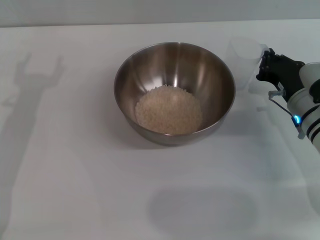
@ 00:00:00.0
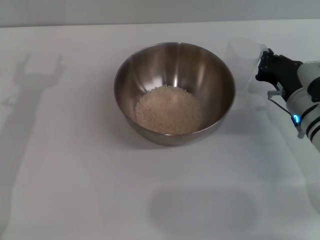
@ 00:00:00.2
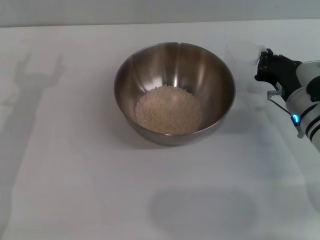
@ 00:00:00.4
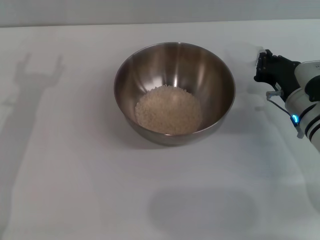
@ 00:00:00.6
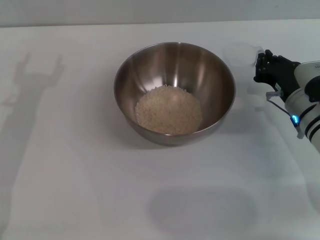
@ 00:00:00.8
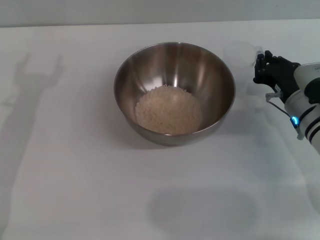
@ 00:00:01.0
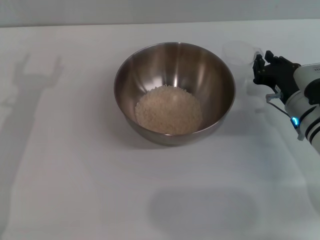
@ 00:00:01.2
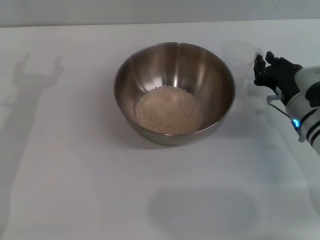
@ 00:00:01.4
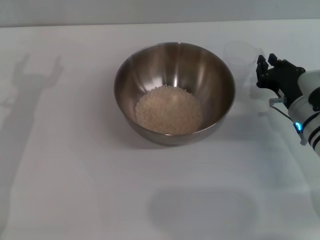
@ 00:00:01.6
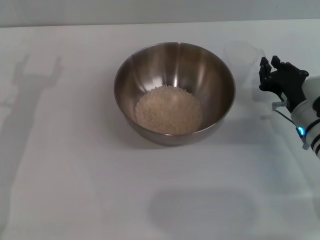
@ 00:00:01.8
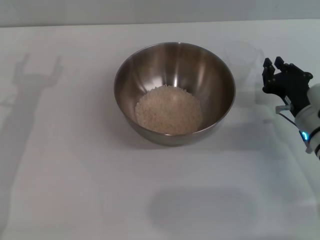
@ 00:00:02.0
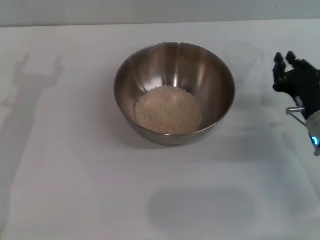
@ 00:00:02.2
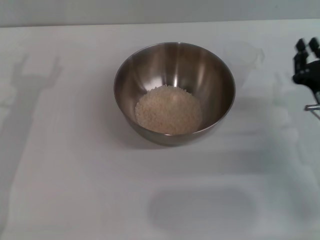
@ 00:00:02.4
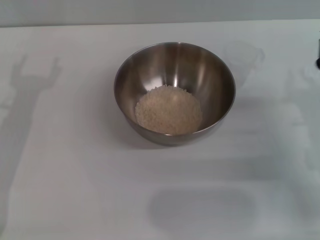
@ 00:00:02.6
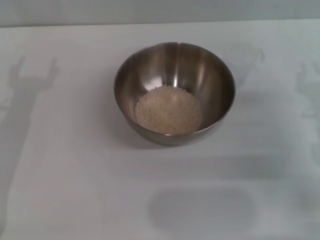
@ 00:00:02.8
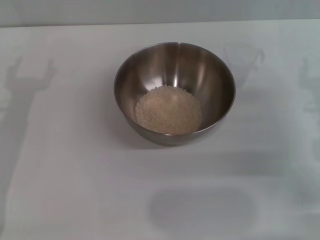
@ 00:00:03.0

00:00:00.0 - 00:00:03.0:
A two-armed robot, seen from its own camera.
Task of the whole recording: Place the bowl in the middle of the table with one hand and pour the rice from the grain cup into it with the other hand.
00:00:00.0 - 00:00:01.6: The right gripper opens its fingers.
00:00:01.6 - 00:00:03.0: The right gripper moves upward and to the right, roughly 10 cm.

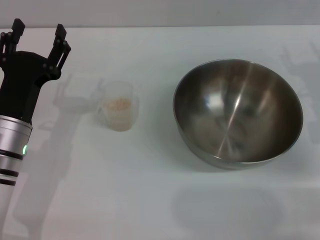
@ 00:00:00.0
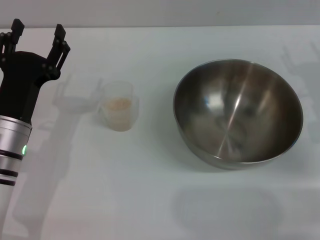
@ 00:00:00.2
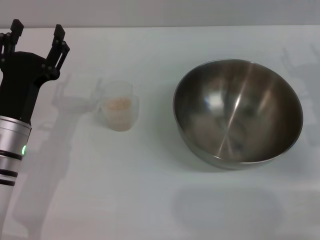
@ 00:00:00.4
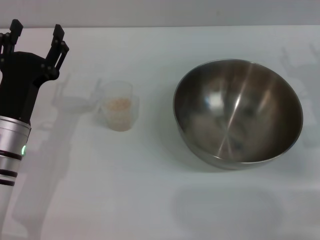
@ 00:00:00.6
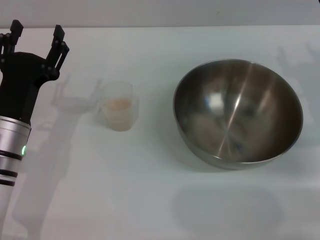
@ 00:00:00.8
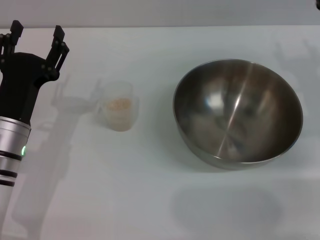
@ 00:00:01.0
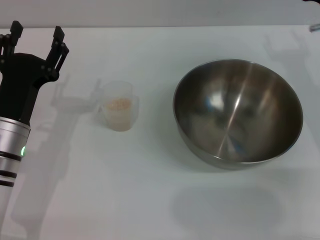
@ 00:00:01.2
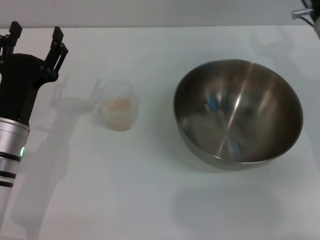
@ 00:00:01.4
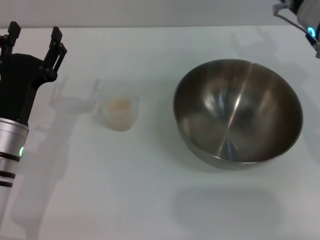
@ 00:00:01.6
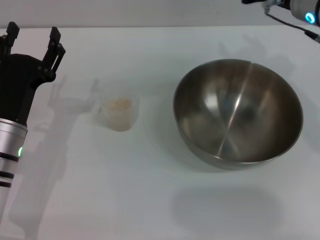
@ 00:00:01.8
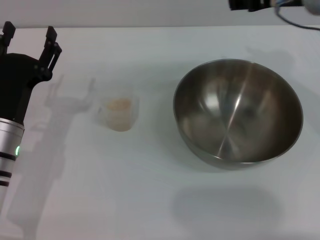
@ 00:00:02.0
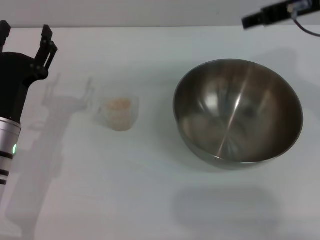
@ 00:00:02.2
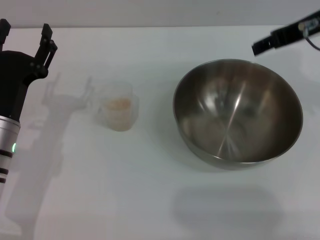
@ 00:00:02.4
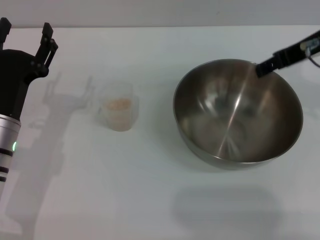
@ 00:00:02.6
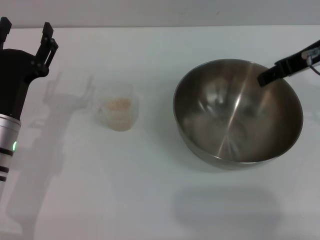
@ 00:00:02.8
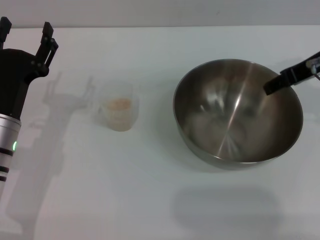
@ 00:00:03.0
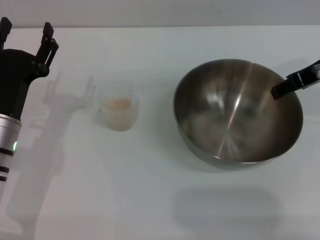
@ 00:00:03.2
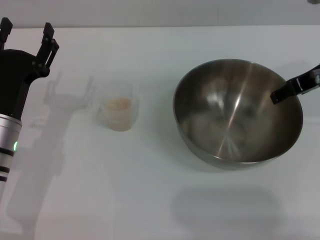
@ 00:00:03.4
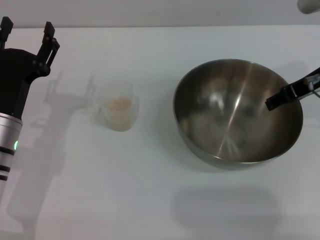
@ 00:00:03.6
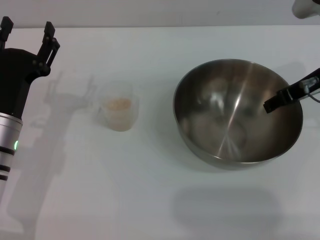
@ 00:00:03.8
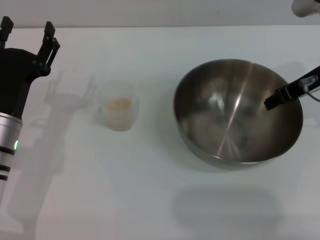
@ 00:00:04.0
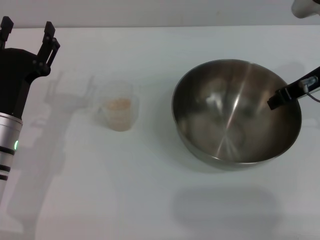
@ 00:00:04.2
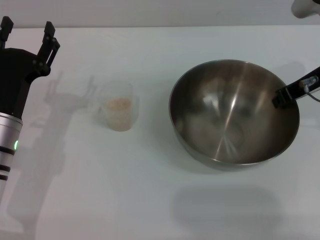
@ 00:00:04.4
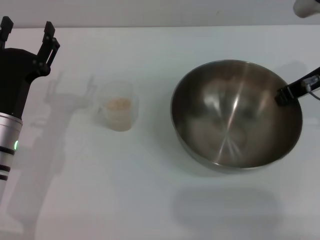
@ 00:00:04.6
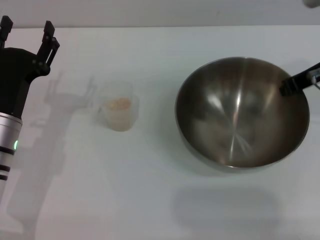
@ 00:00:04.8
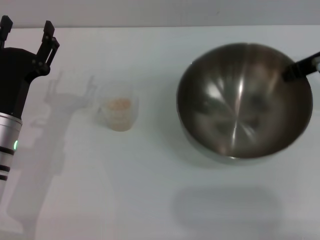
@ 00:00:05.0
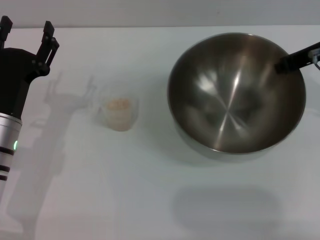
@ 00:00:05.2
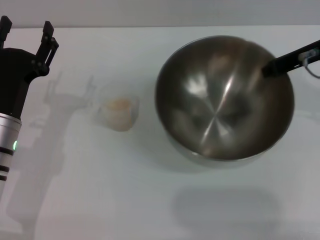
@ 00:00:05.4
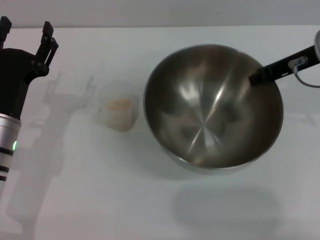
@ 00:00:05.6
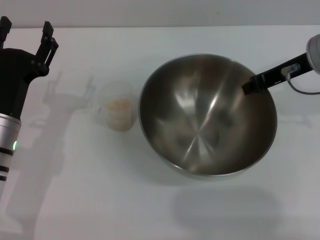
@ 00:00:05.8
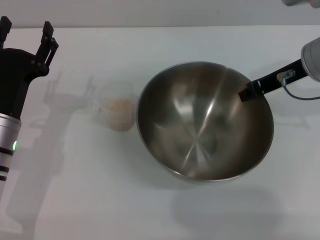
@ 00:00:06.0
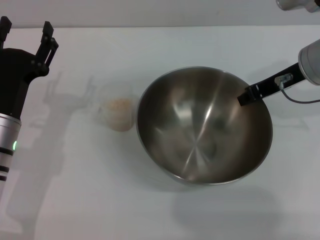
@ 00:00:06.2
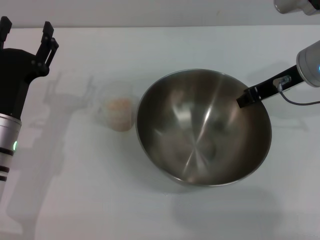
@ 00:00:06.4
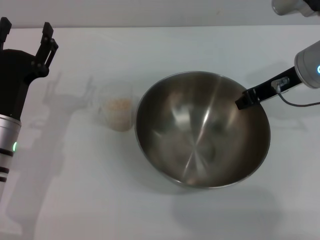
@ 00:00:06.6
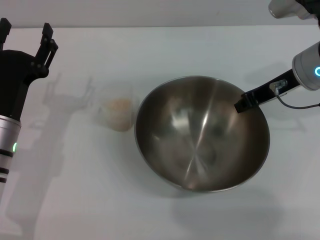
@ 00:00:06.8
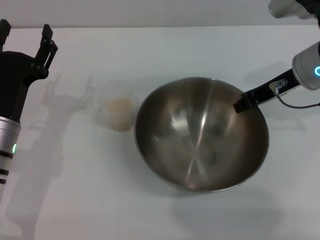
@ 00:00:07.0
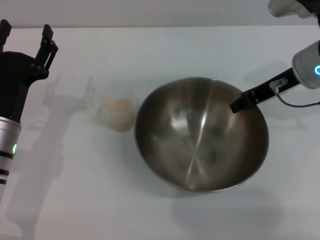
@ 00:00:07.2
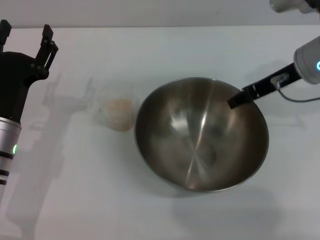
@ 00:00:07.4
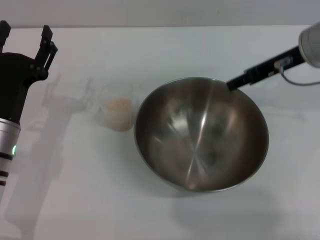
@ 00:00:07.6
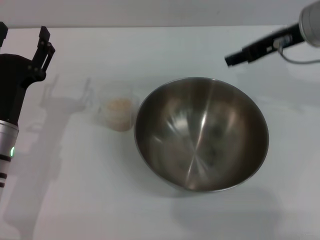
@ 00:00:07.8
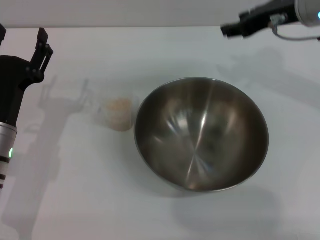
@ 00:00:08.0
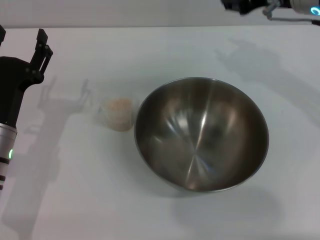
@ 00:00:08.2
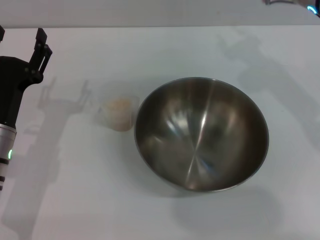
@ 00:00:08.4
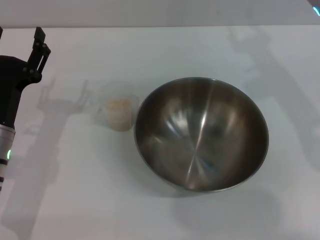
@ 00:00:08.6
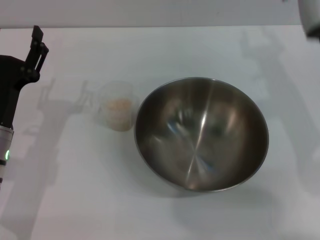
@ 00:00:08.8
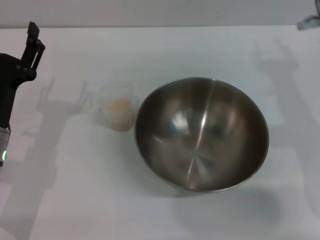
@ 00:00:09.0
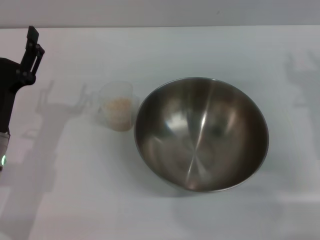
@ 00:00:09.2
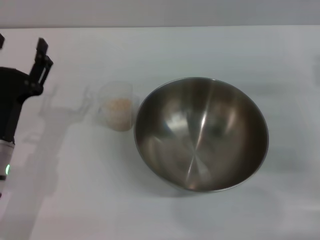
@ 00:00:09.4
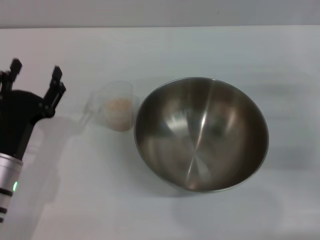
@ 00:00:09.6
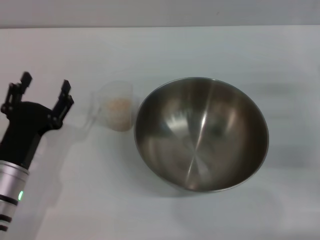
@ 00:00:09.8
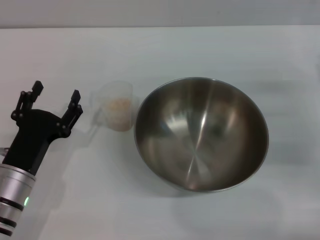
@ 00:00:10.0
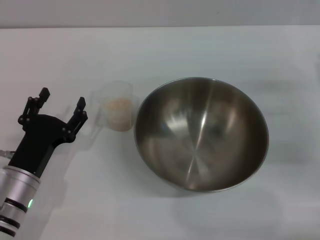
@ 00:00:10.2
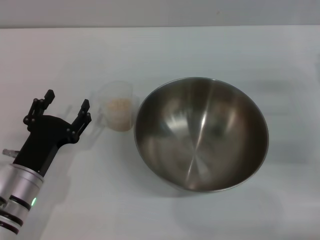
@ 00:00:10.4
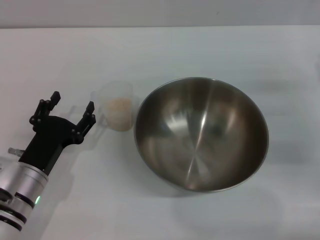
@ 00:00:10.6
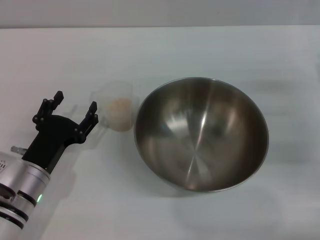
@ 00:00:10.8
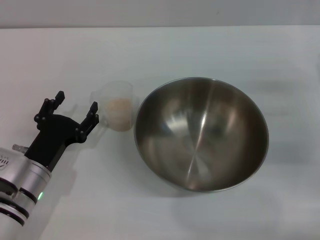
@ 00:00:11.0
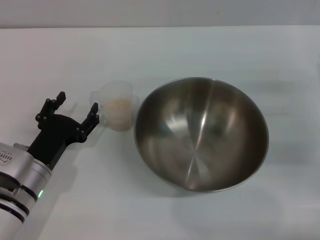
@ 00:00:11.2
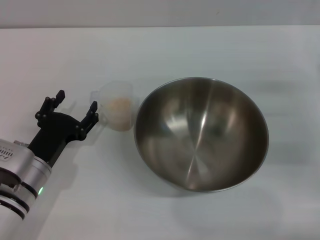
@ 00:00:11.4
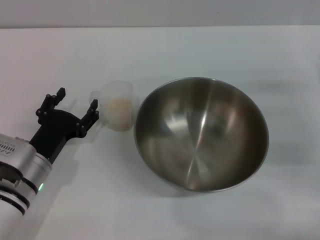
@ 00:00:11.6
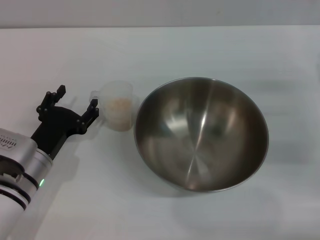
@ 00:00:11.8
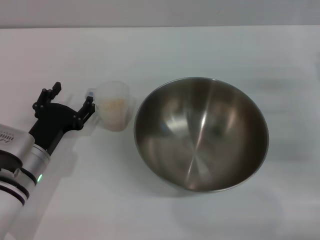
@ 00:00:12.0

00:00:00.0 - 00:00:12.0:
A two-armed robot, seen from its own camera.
Task of the whole recording: Place the bowl in the middle of the table with one hand and pour the rice from the grain cup into it with the other hand.
Step, 00:00:00.0 - 00:00:04.8: Pick up the bowl with the right gripper.
Step, 00:00:05.0 - 00:00:07.6: Place the bowl in the center of view with the right gripper.
00:00:00.0 - 00:00:01.6: The right gripper is displaced upward, to the left and forward by approximately 10 cm.
00:00:03.0 - 00:00:04.4: The right gripper closes its fingers.
00:00:04.4 - 00:00:06.0: The right gripper closes.
00:00:06.0 - 00:00:07.6: The right gripper opens.
00:00:07.6 - 00:00:09.0: The right gripper travels downward and backward by roughly 10 cm.
00:00:09.0 - 00:00:10.4: The right gripper travels to the right and downward by some 10 cm, while the left gripper moves downward, approximately 5 cm.
00:00:10.4 - 00:00:12.0: The grippers move only a little.

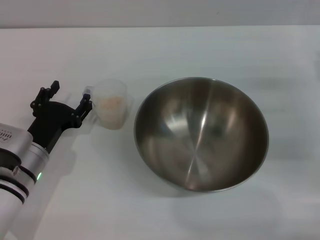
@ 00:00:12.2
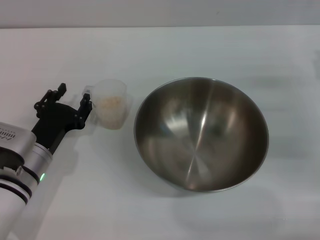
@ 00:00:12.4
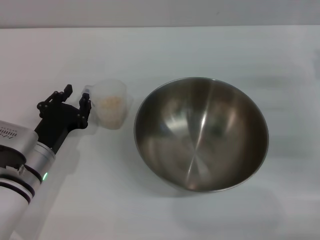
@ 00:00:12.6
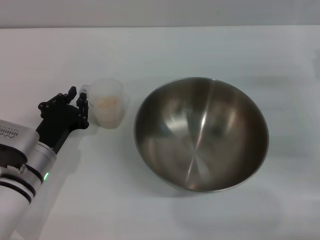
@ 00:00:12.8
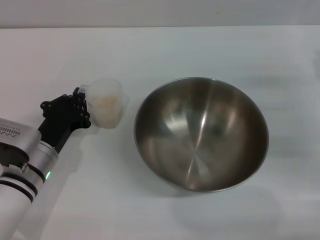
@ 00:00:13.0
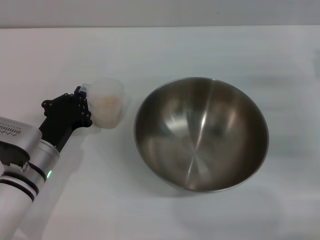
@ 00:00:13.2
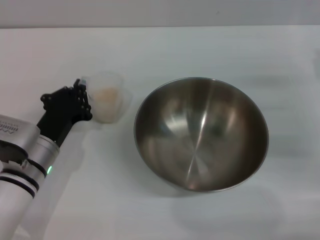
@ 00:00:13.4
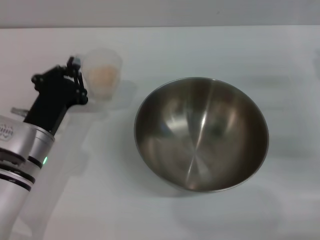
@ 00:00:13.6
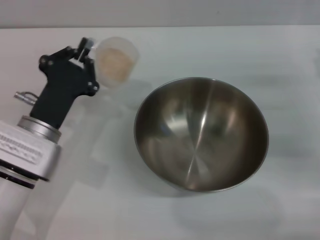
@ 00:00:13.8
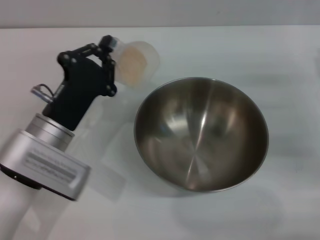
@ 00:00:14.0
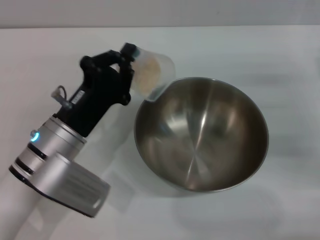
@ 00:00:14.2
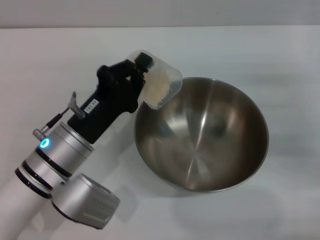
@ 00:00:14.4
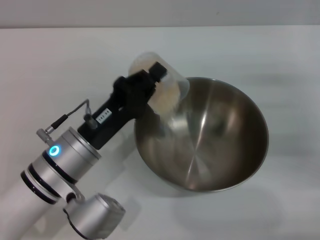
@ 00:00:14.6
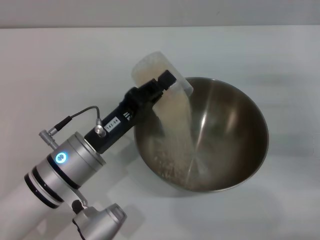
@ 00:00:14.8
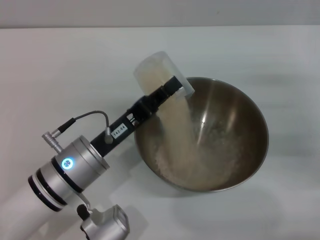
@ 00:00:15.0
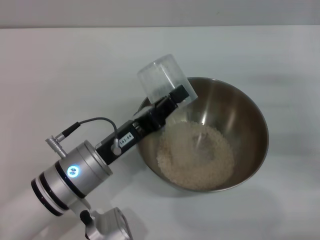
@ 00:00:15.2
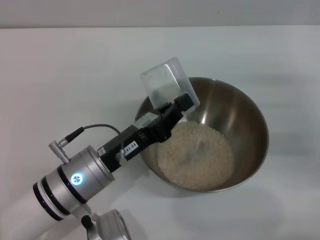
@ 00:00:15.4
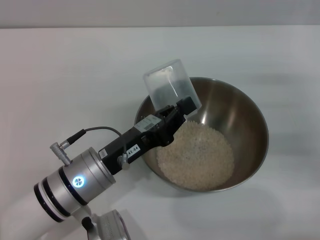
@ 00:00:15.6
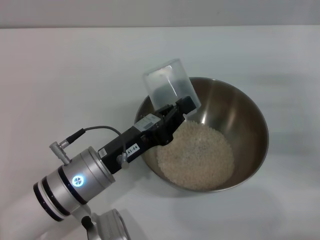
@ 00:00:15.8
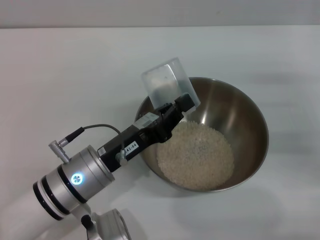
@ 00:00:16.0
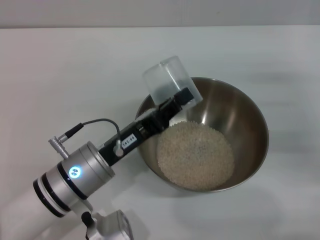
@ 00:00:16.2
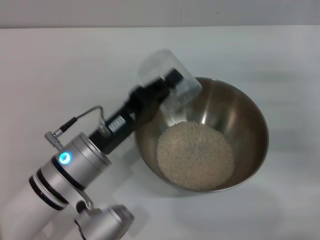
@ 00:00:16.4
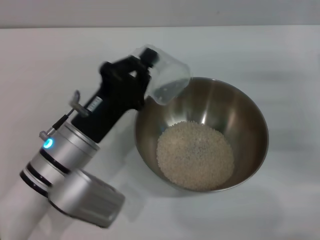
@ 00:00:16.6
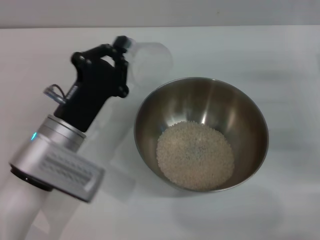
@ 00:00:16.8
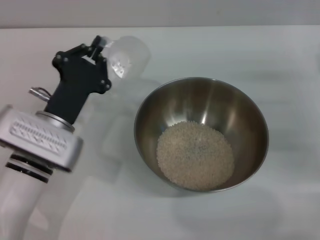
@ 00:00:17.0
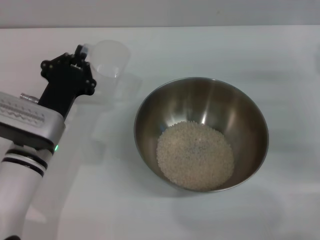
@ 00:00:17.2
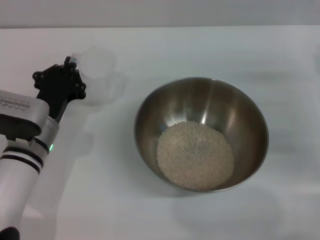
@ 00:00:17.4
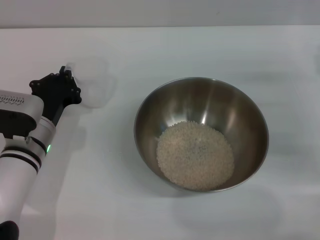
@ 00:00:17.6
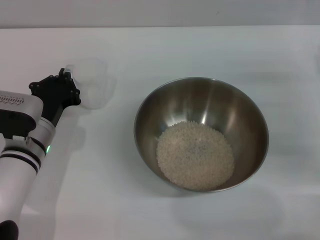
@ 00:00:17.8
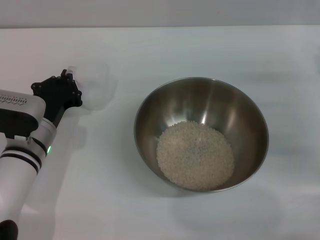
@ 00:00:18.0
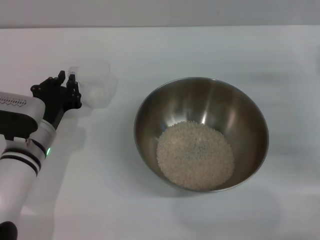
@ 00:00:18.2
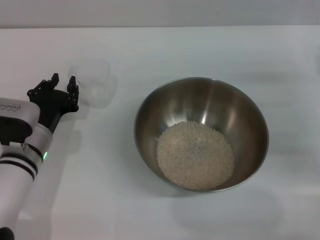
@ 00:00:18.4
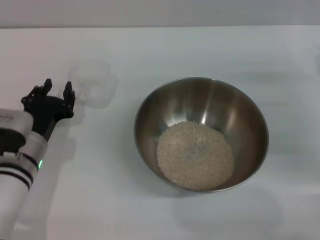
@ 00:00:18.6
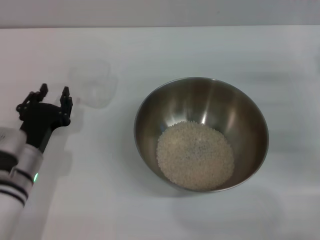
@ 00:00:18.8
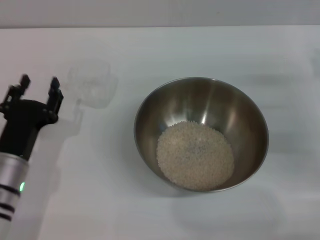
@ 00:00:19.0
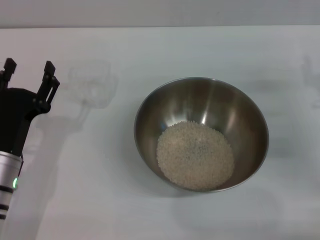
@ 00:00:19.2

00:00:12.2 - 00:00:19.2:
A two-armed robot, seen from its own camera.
Task of the whole recording: Place the bowl in the middle of the table with one hand and pour the rice from the grain cup into it with the other hand.
Step, 00:00:13.6 - 00:00:16.2: Pour the rice from the cup into the bowl with the left gripper.
Step, 00:00:16.4 - 00:00:18.4: Place the cup on the table with the left gripper.
00:00:12.2 - 00:00:13.6: The left gripper closes.
00:00:13.6 - 00:00:15.0: The left gripper travels to the right by approximately 5 cm.
00:00:15.0 - 00:00:16.4: The grippers stay close to where they were, moving slightly.
00:00:16.4 - 00:00:17.8: The left gripper is displaced to the left and forward by about 10 cm.
00:00:17.8 - 00:00:19.2: The left gripper goes roughly 5 cm backward, and opens its fingers.
